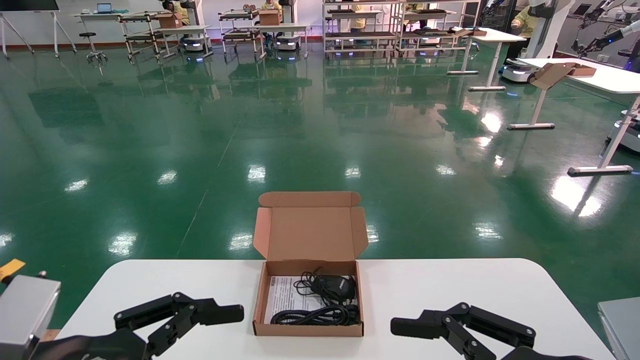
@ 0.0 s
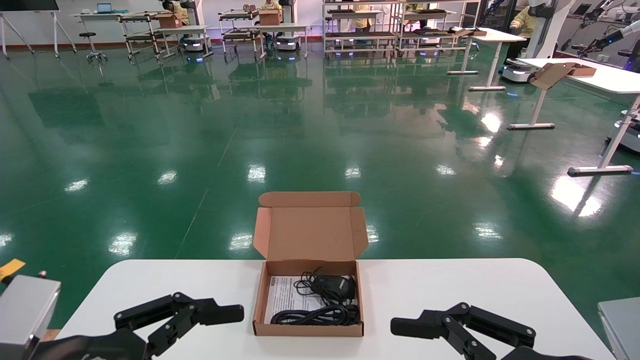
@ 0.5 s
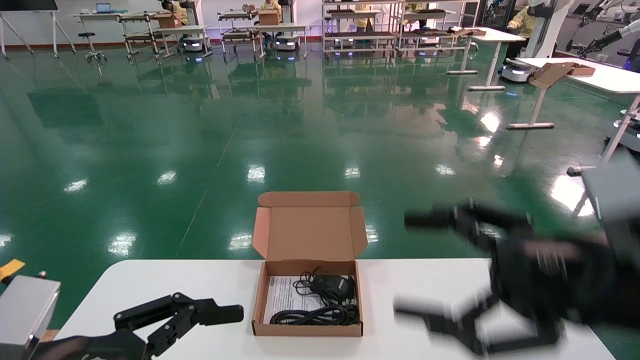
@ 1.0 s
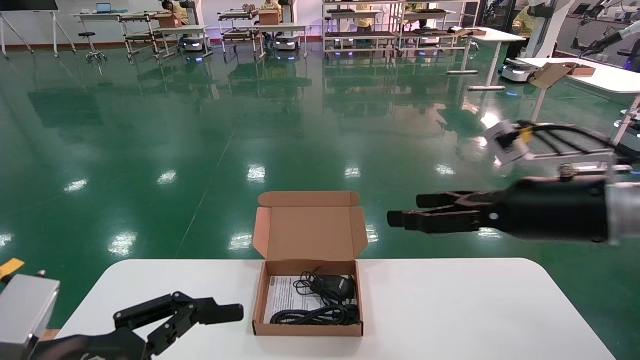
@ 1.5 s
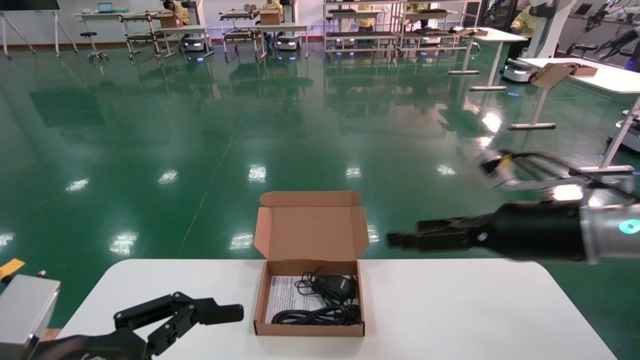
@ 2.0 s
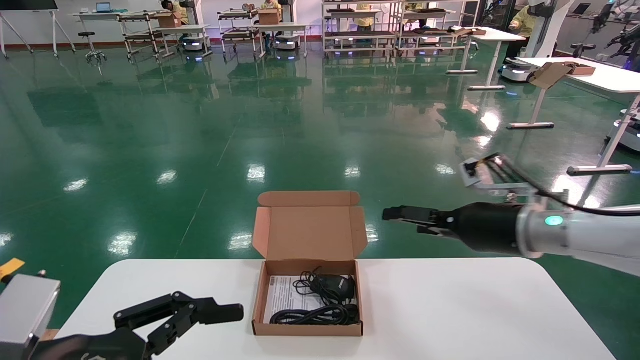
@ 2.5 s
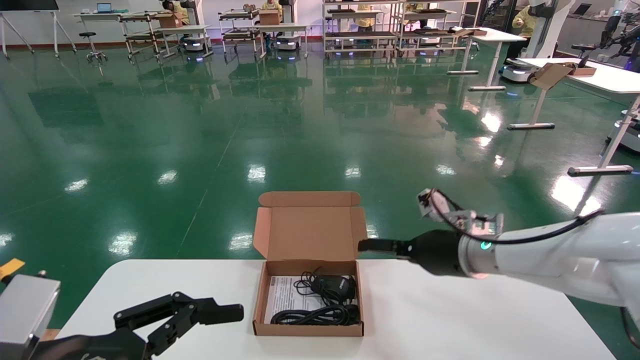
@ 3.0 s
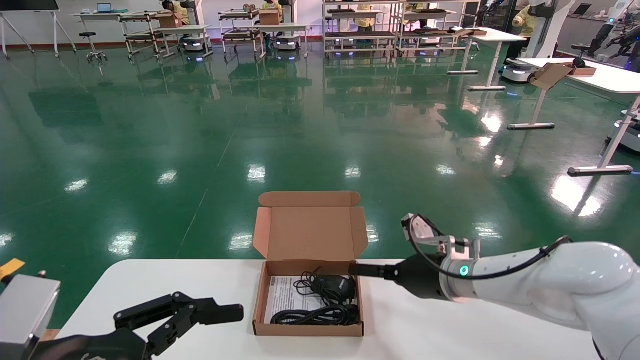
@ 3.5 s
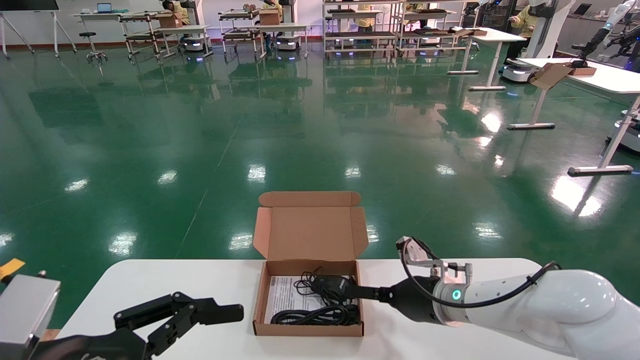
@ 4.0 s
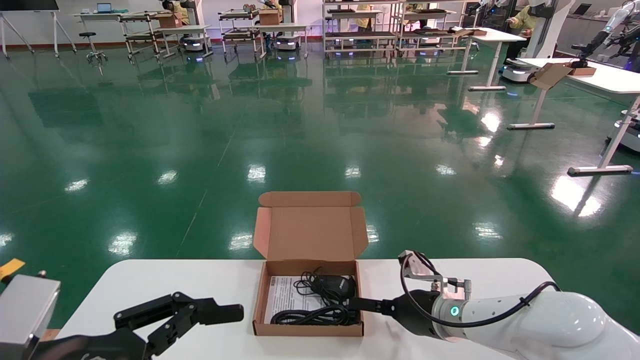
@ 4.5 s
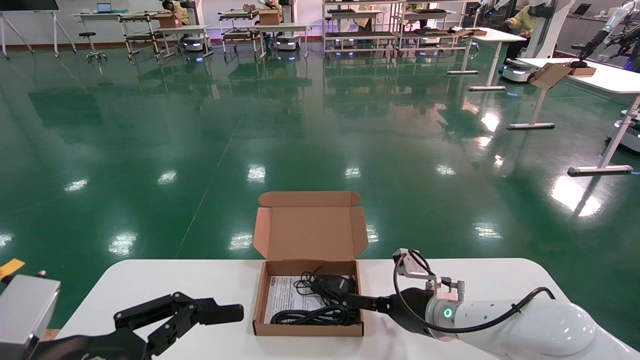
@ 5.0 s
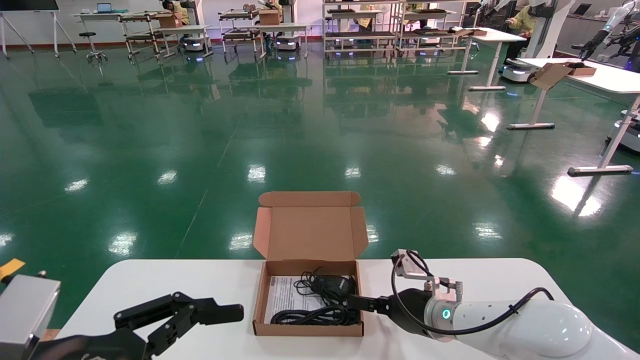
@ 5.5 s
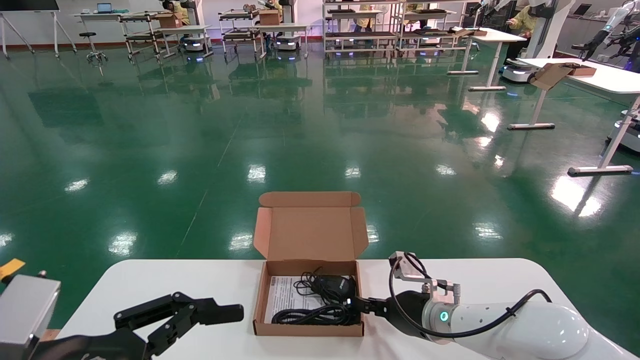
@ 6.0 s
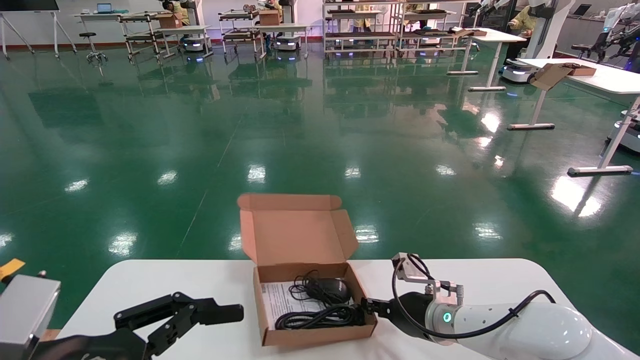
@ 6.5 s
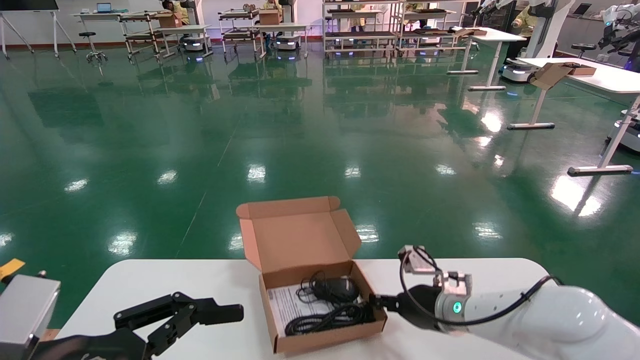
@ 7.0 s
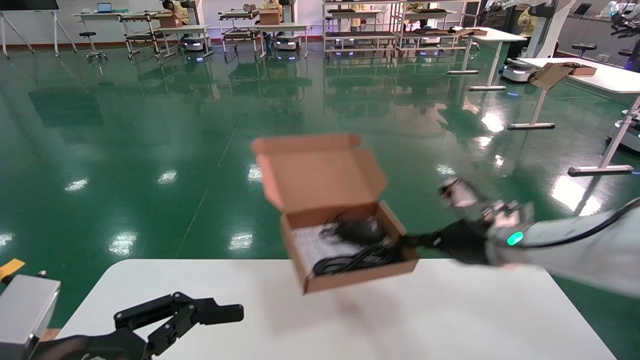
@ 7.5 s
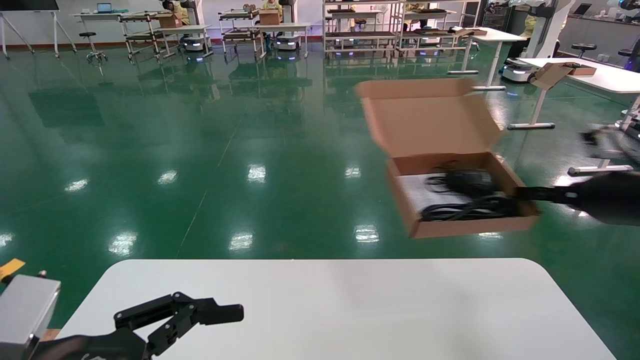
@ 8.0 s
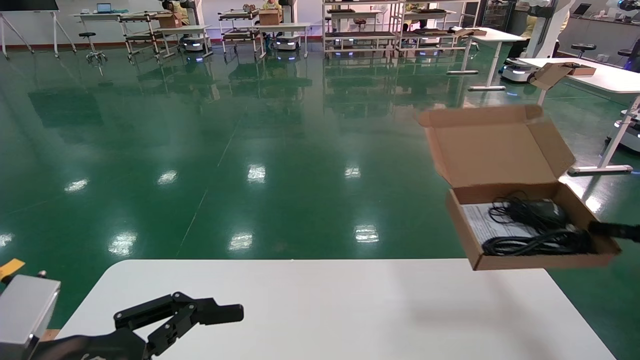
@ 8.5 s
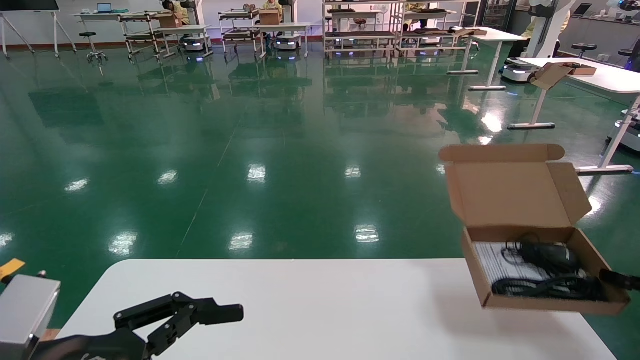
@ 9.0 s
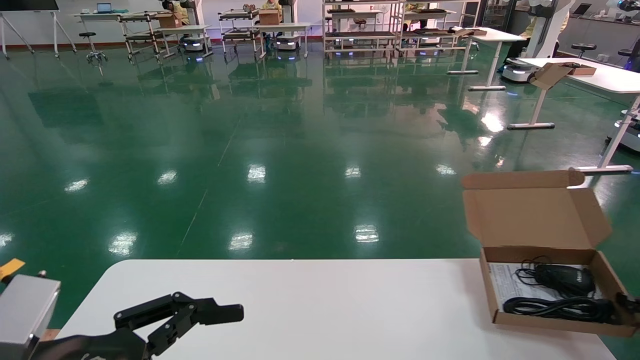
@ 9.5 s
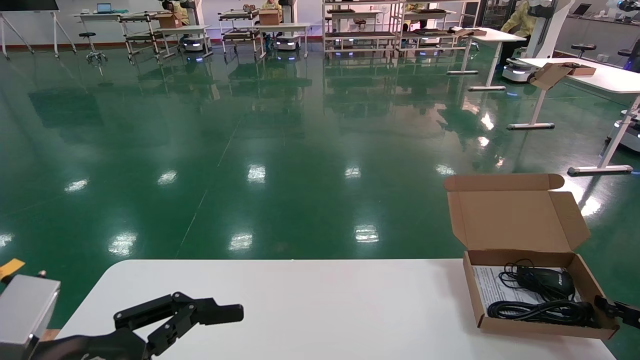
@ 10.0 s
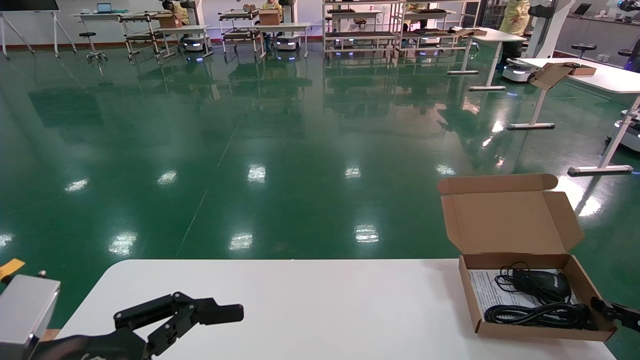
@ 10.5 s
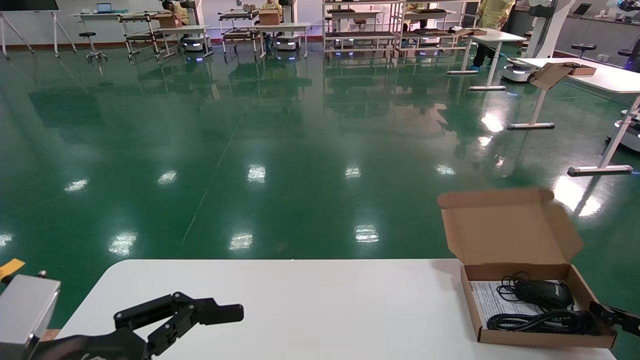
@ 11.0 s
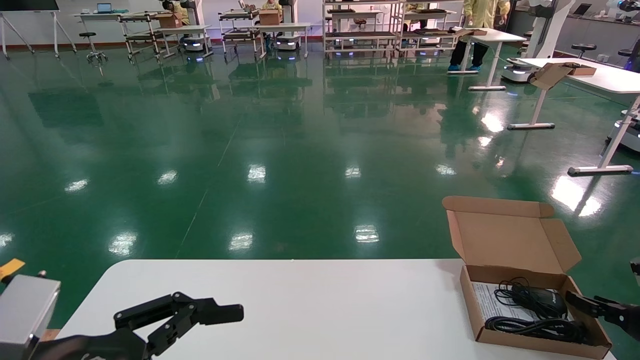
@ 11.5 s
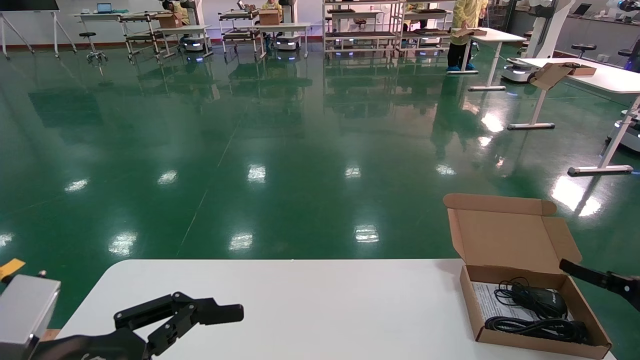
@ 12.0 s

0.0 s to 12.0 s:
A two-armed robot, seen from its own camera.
Task of the whole recording: move the position of the storage box with accessories on the table.
Step, 1.0 to 6.5 s: Grab and pick up the open mouse box from the accessory packaging area.
Step, 7.0 to 11.0 s: Place the open mouse box onto the operation table.
0.0 to 2.0 s: The right gripper heads forward and upward, covering some 20 cm.
2.0 to 4.0 s: The right gripper is displaced downward, to the left and forward by roughly 20 cm.
4.0 to 6.0 s: The right gripper closes its fingers.
6.0 to 8.0 s: The right gripper heads to the right and upward, covering some 30 cm, and closes up.
8.0 to 10.0 s: The right gripper shifts some 20 cm downward and to the right.
10.0 to 12.0 s: The right gripper opens up.

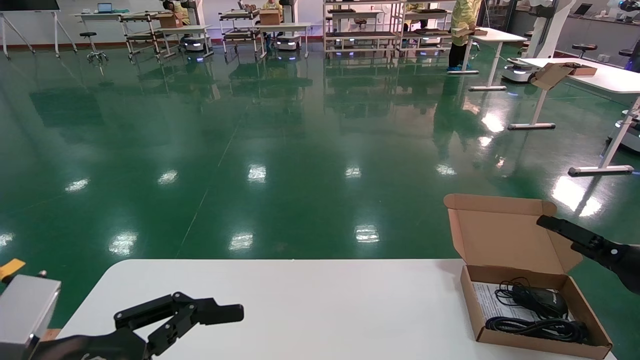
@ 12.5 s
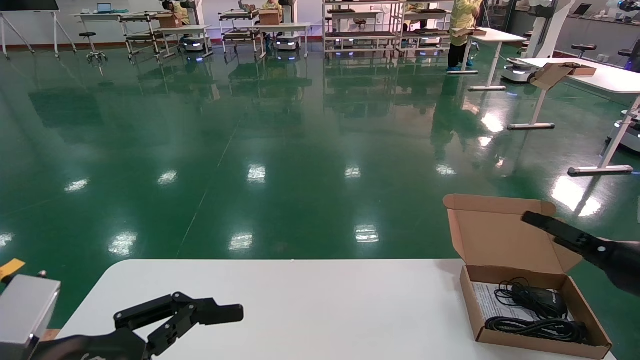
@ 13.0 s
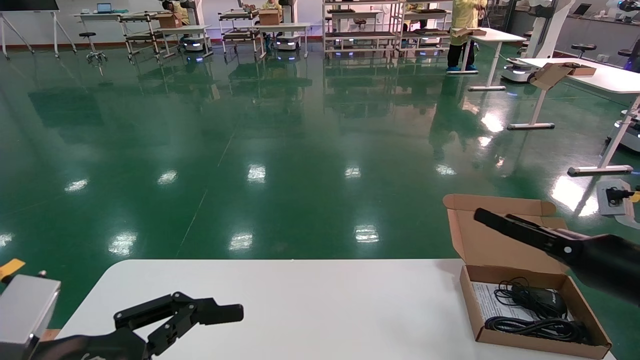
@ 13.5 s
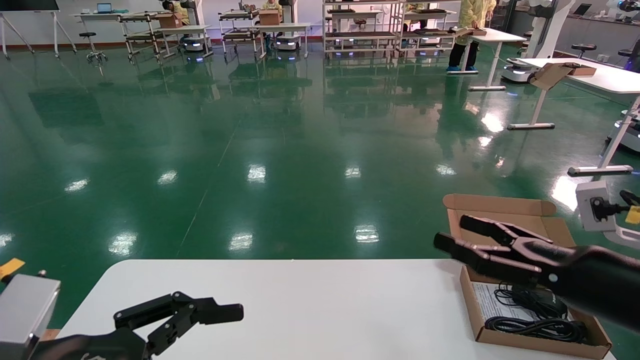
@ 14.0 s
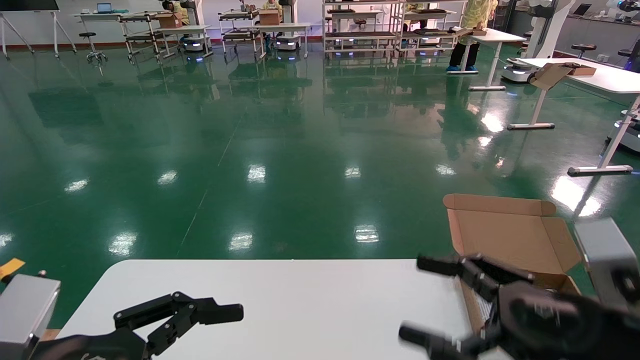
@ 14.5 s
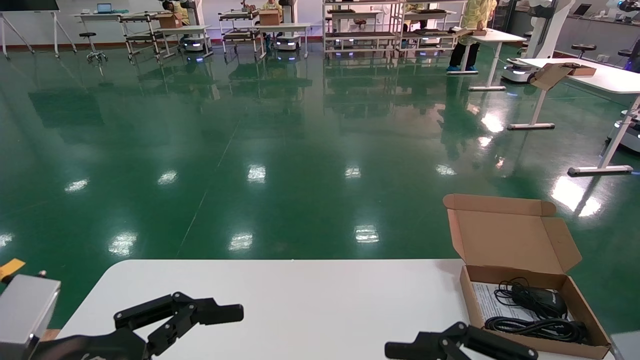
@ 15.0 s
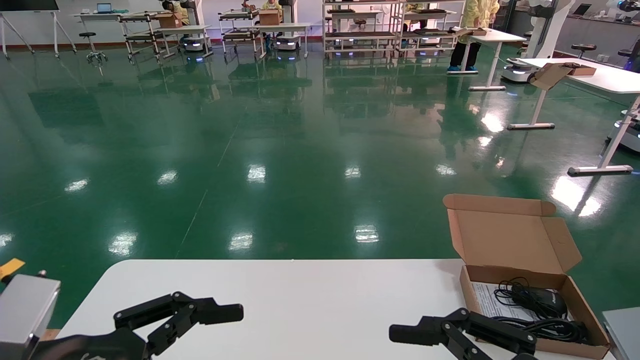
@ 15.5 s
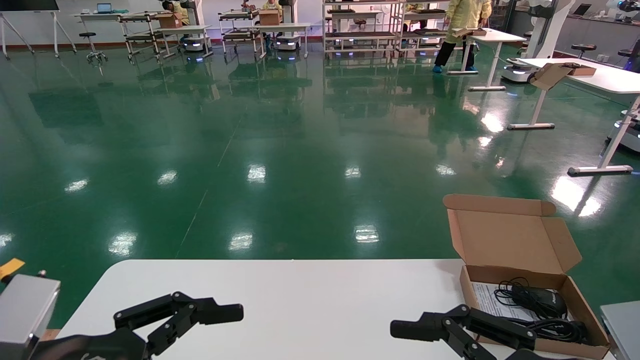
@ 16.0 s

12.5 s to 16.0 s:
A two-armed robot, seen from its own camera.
Task of the whole recording: move the position of the storage box with accessories on the table.
12.5 to 14.5 s: The right gripper heads to the left and backward, covering approximately 25 cm.
14.5 to 16.0 s: The right gripper changes place by about 5 cm.
